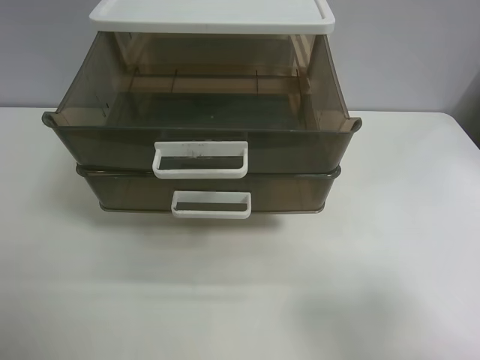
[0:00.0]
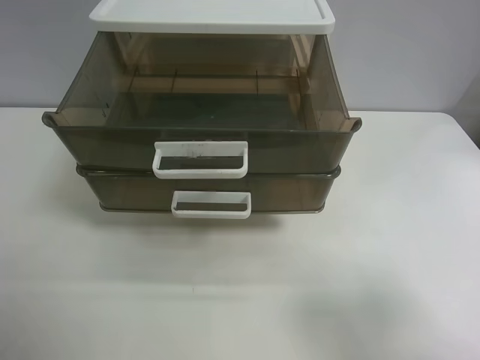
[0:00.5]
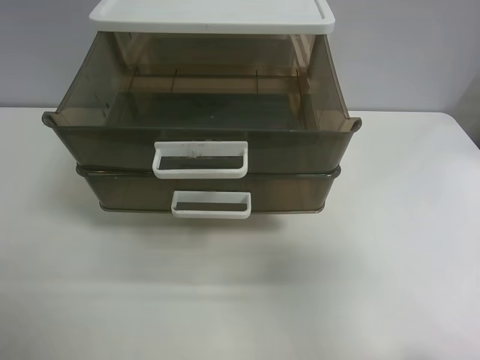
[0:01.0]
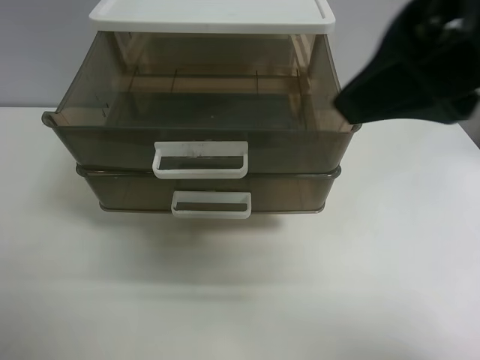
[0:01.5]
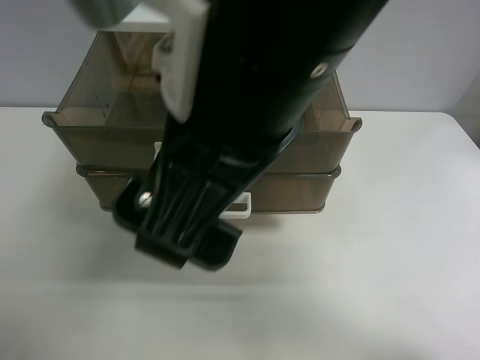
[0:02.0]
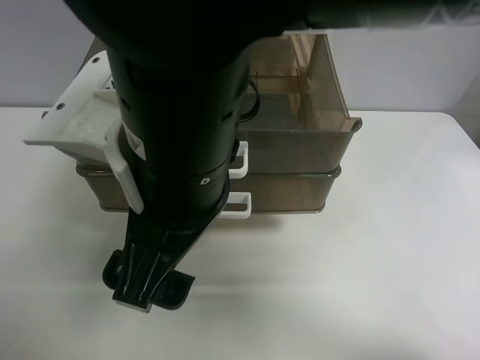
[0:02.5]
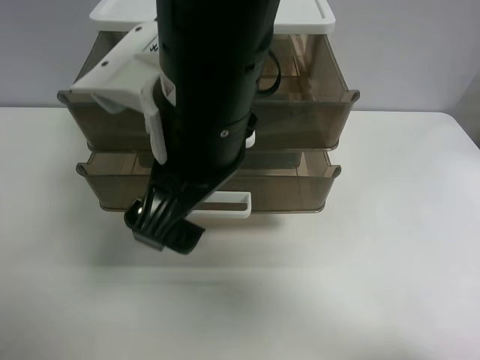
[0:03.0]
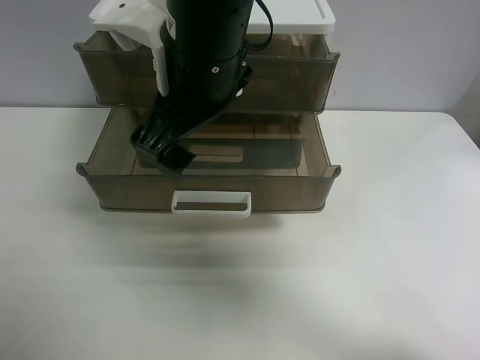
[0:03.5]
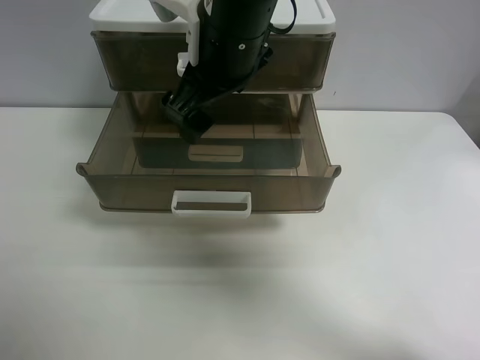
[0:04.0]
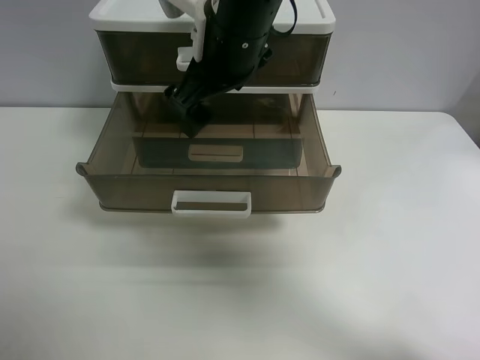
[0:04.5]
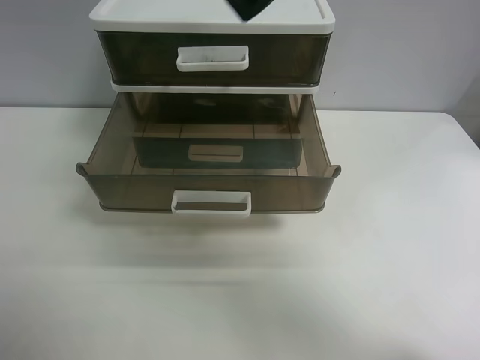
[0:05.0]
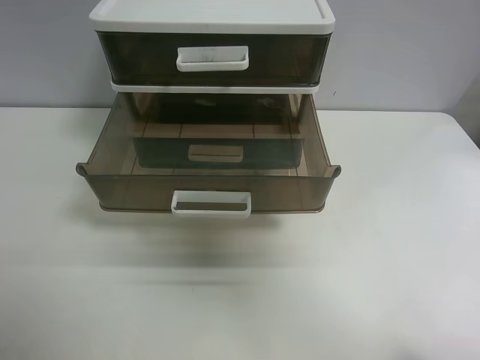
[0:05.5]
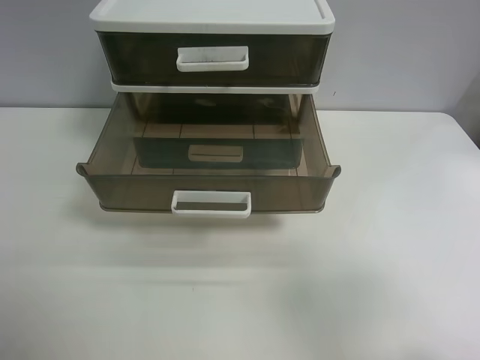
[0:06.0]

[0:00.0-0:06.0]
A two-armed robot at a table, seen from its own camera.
Task of the whole recording: close the top drawer.
Step, 0:00.0 to 0:02.5: Use the right gripper to touch the topmost layer of the storage cabinet.
Step, 0:03.0 to 0:04.0: Push the top drawer closed.
0:00.0 to 0:02.0: The right gripper moves to the left and forward, some 30 cm.
0:02.0 to 0:04.0: The right gripper goes about 15 cm forward.
0:04.0 to 0:06.0: The right gripper heads to the right and backward, covering some 40 cm.
